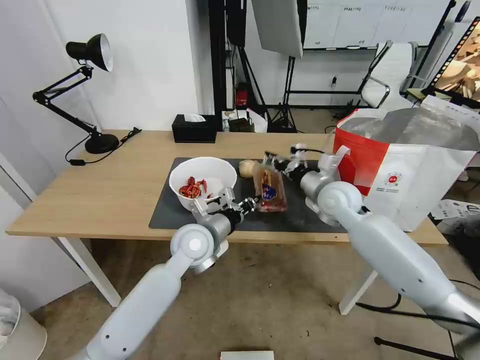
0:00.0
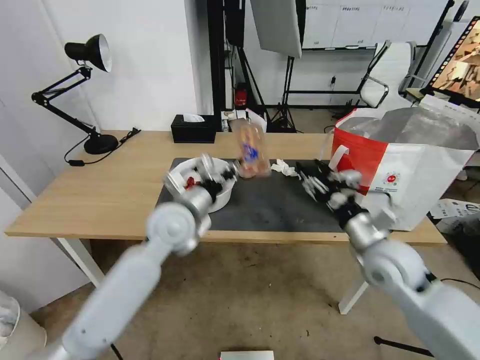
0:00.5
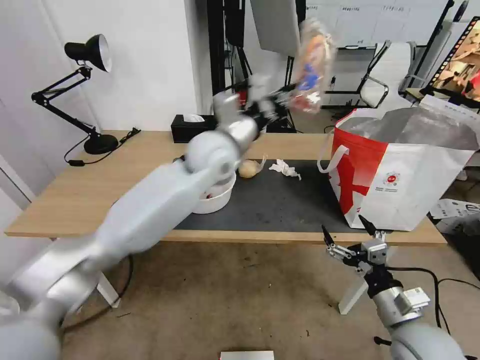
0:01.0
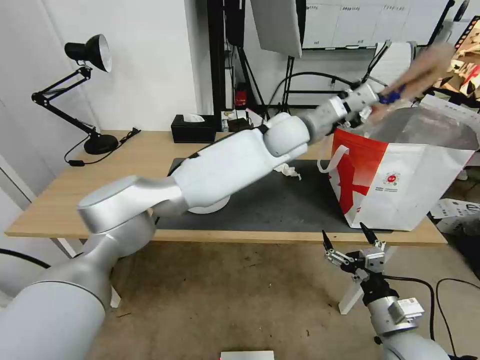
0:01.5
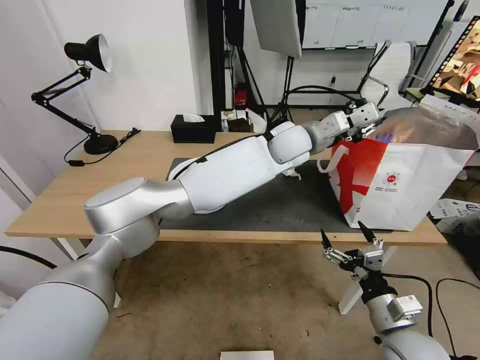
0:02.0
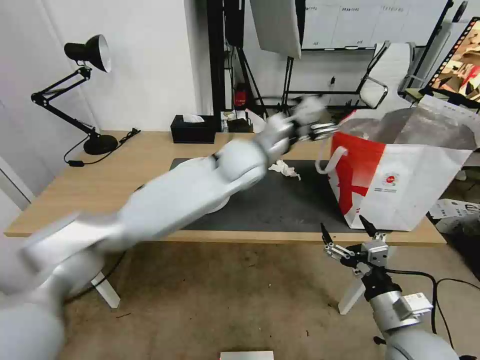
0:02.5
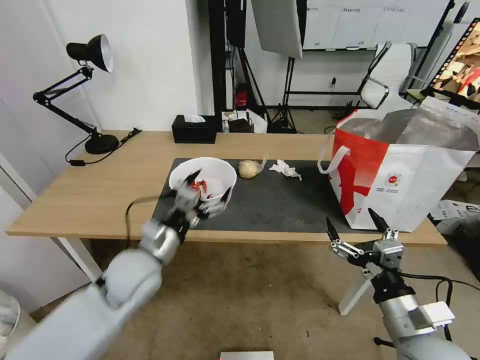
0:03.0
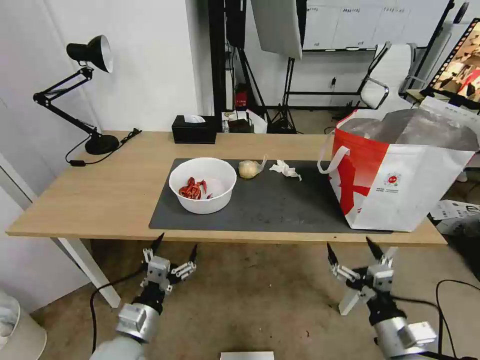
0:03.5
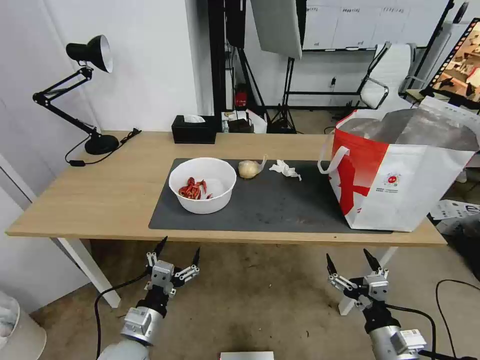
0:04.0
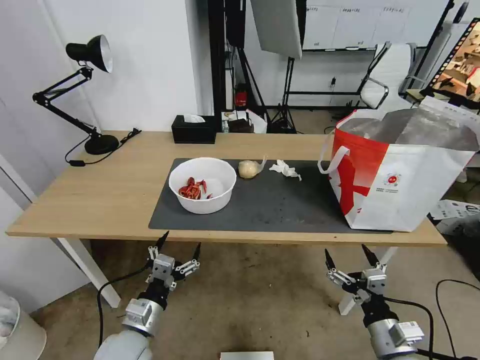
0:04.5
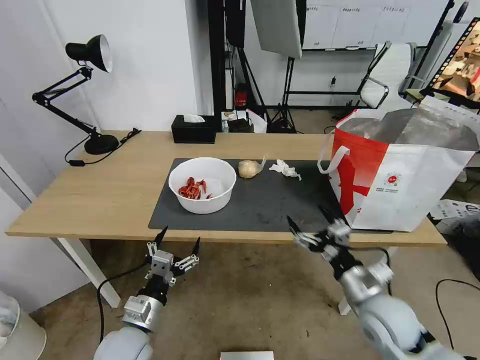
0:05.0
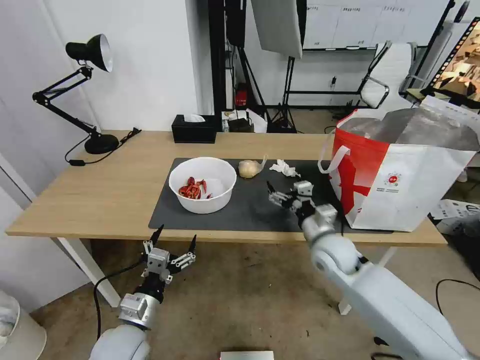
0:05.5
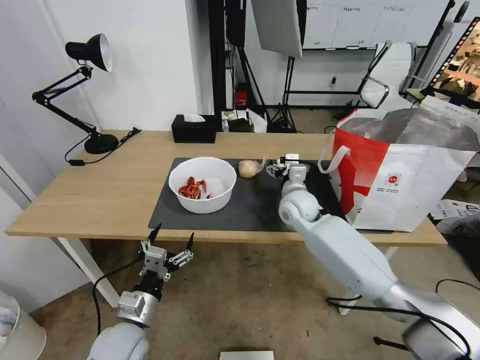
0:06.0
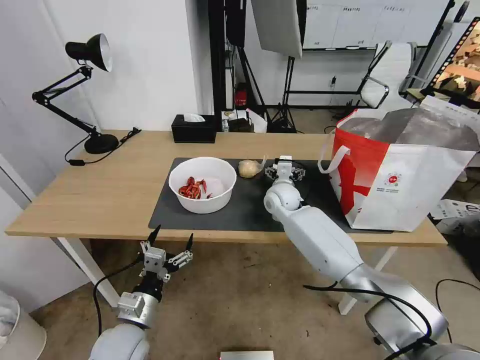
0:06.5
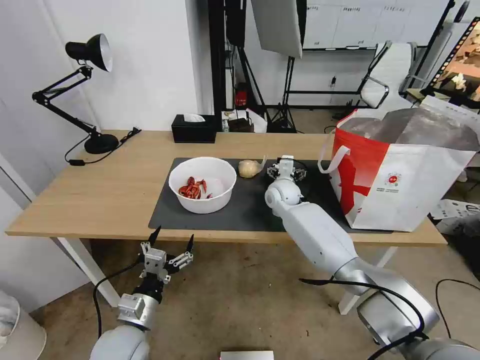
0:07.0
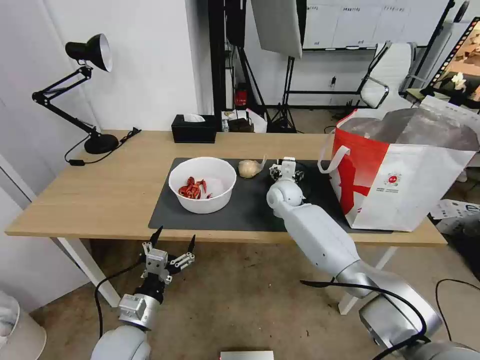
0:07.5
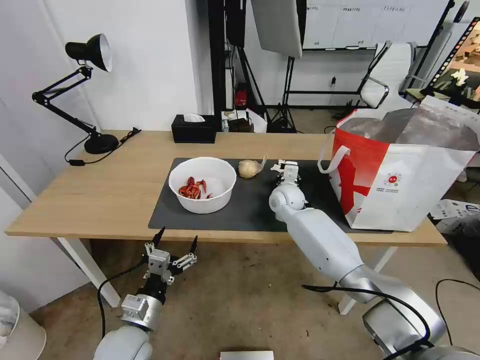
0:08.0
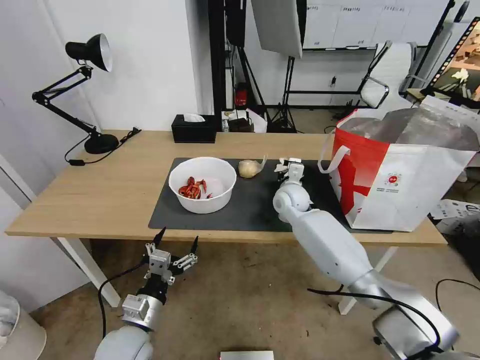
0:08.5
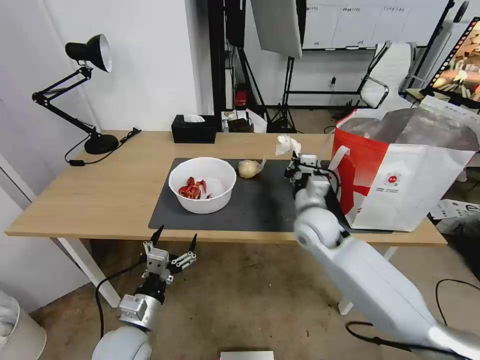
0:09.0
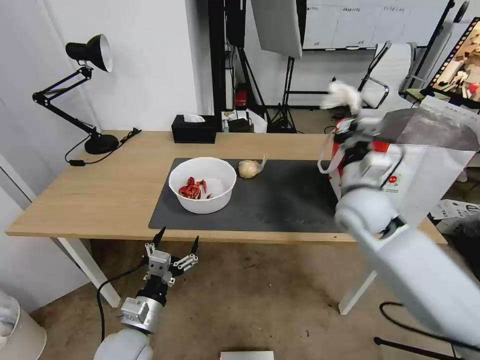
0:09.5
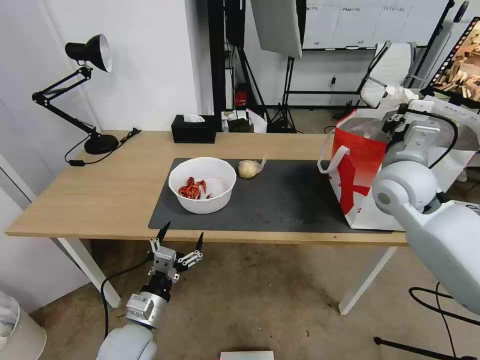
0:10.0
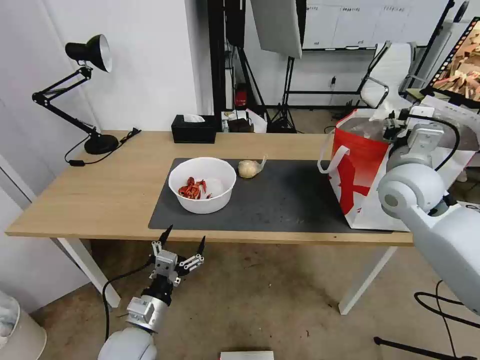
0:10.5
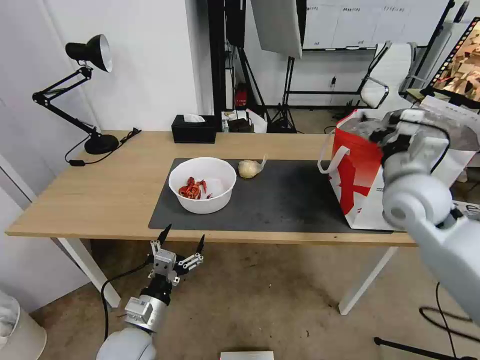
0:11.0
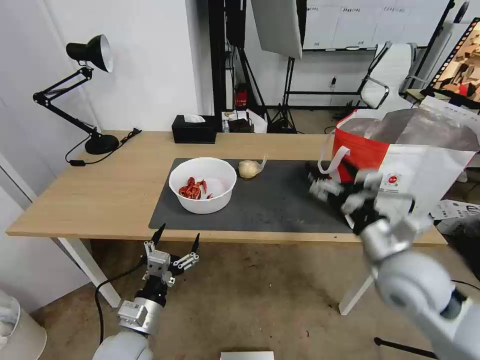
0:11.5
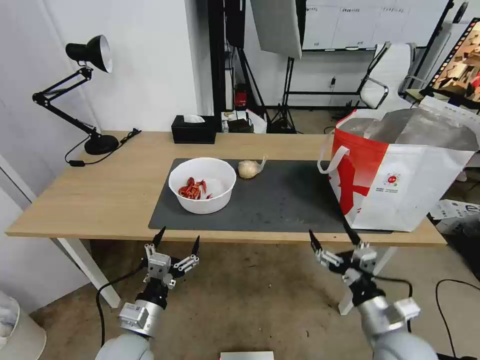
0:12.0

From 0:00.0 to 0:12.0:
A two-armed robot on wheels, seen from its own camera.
Task of the whole recording: Pick up the trash from the table and place it into the takeout bag.
From 0:00.0 to 0:02.0: The right gripper heads backward, covering approximately 30 cm, and opens up. The left gripper heads to the right, upward and forward, covering roughly 30 cm.
From 0:02.0 to 0:04.0: The right gripper shifts by roughly 5 cm, while the left gripper moves backward, to the left and downward, some 60 cm, and opens.
From 0:04.0 to 0:06.0: The right gripper heads forward and to the left, covering some 40 cm.
From 0:06.0 to 0:08.0: The right gripper is displaced forward by approximately 5 cm, and closes.
From 0:08.0 to 0:10.0: The right gripper moves upward, to the right and backward, about 30 cm.
From 0:10.0 to 0:12.0: The right gripper moves backward and downward, about 30 cm, and opens.

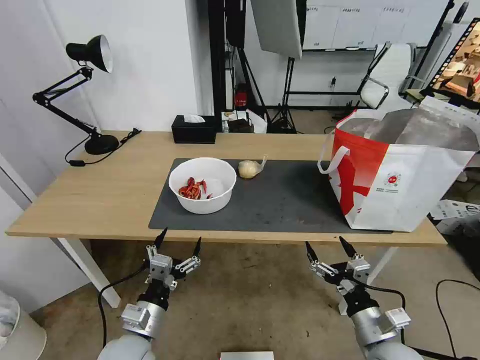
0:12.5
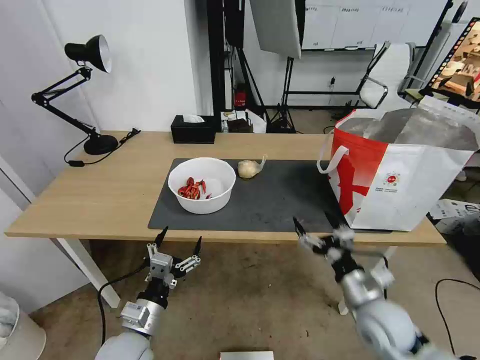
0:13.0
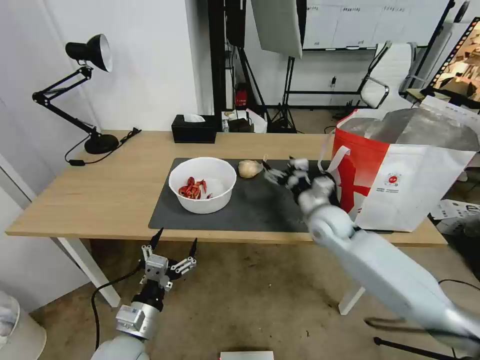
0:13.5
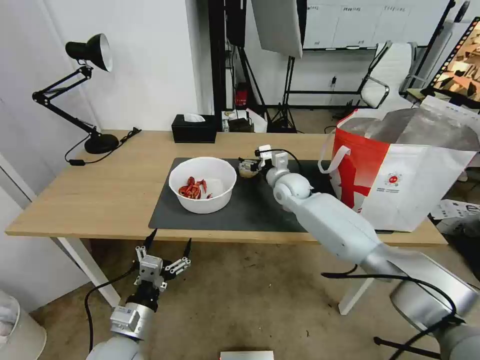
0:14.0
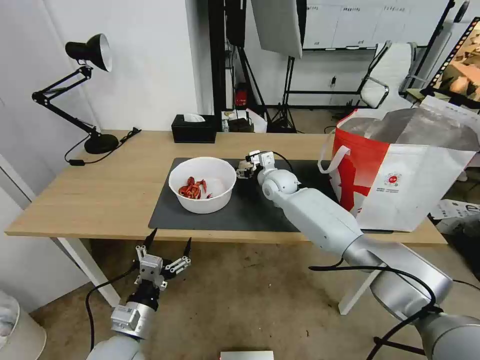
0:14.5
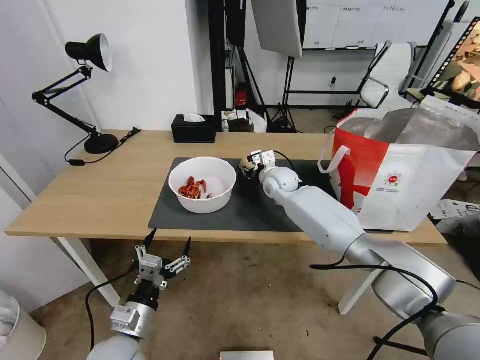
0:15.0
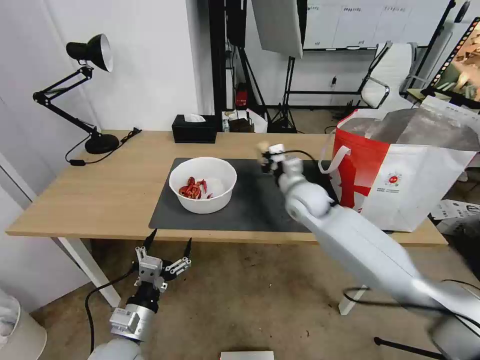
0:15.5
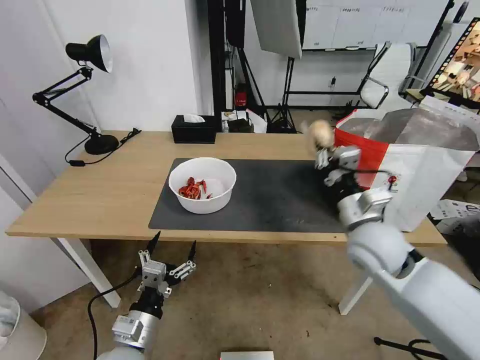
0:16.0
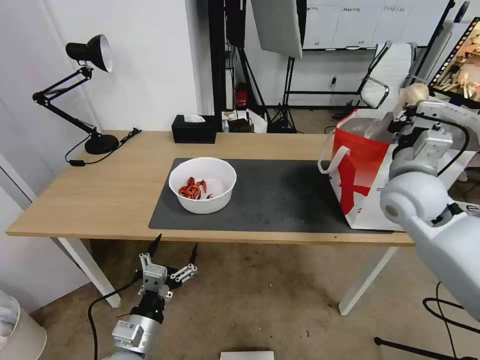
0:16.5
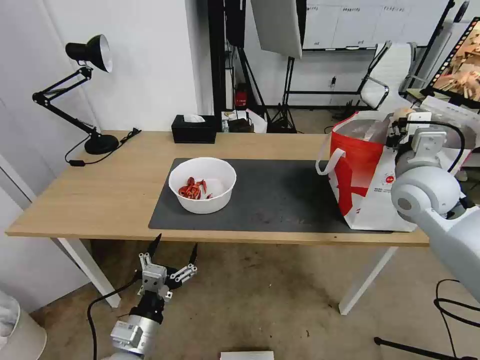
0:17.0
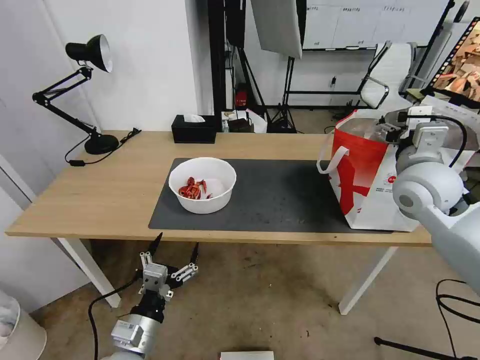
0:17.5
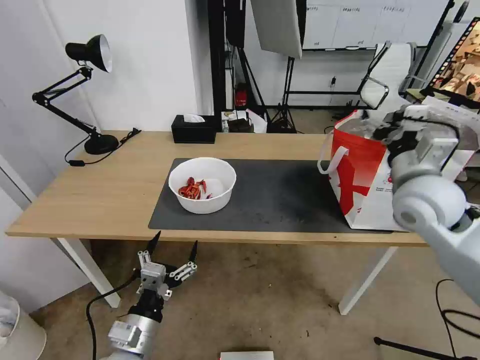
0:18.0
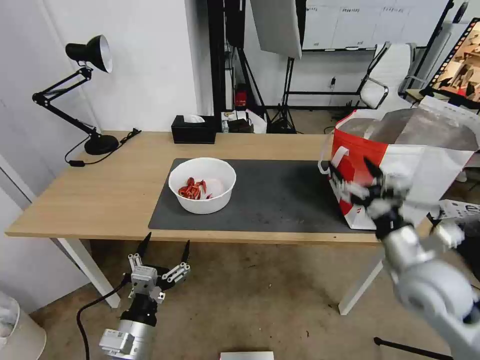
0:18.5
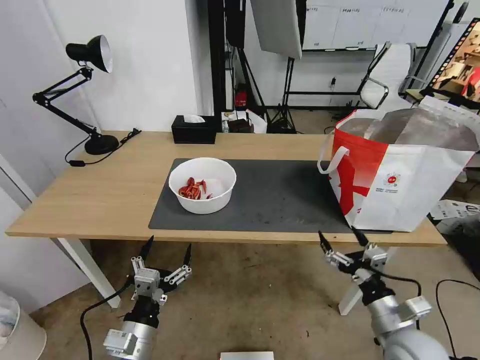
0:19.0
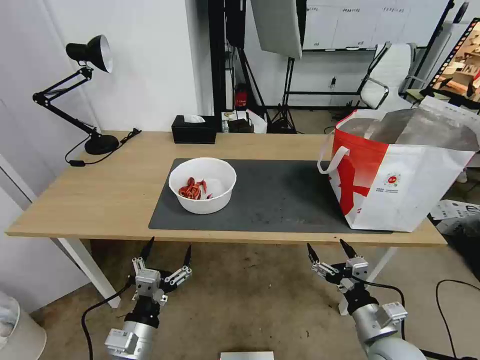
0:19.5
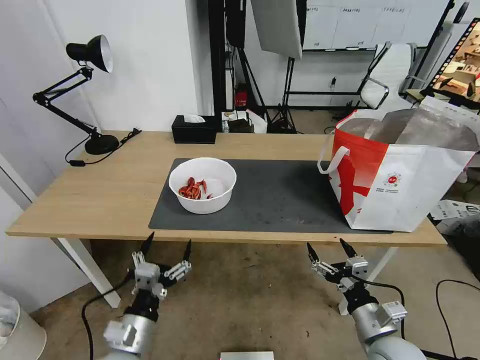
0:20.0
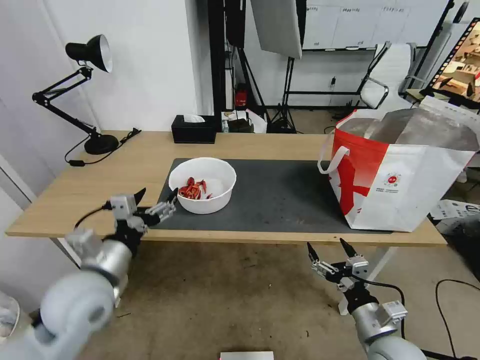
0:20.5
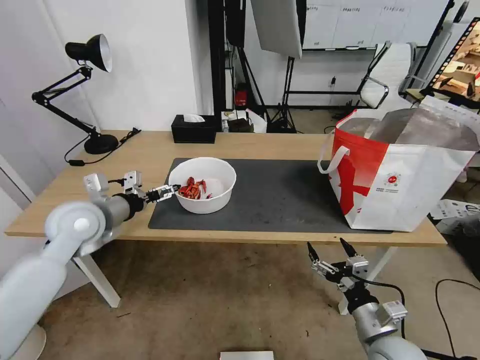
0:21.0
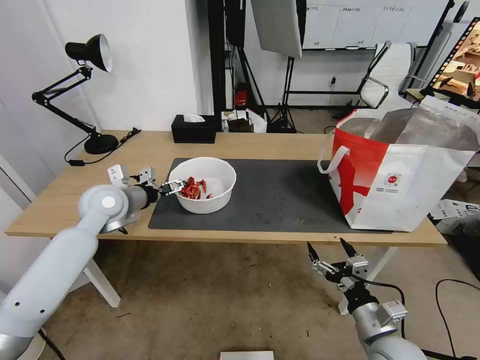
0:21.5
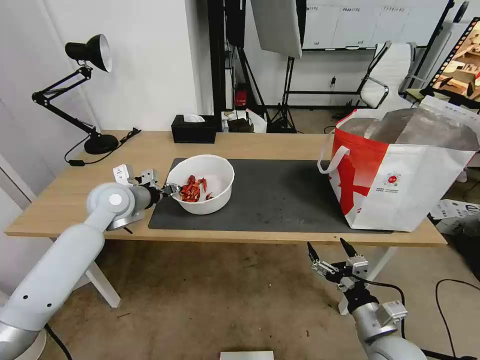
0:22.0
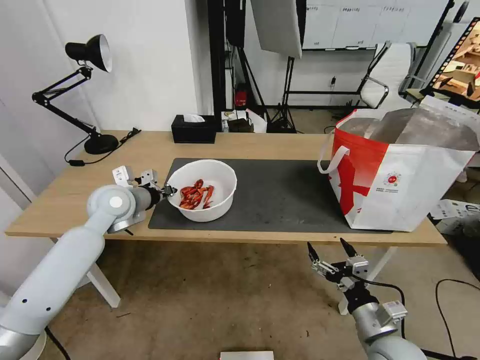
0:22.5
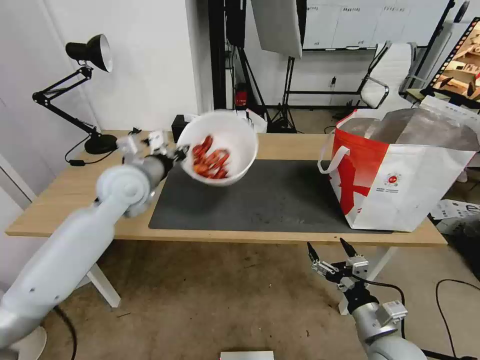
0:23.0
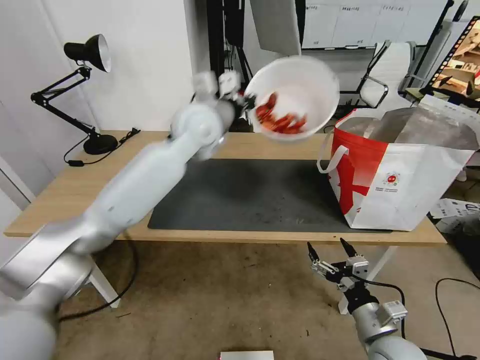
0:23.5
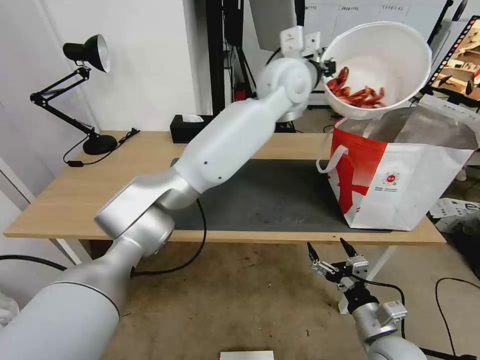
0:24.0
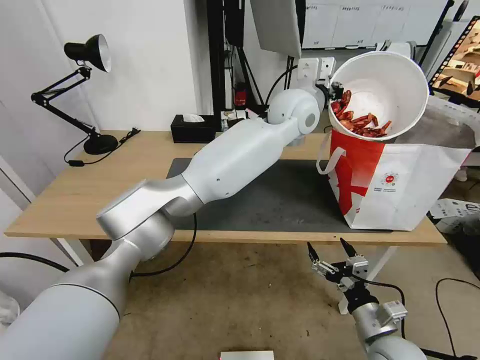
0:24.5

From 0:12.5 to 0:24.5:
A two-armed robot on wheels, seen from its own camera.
Task of the whole recording: Pick up the trash from the table and place it into the takeout bag.
From 0:12.5 to 0:14.5: The right gripper goes some 40 cm forward and to the left.
From 0:14.5 to 0:16.5: The right gripper shifts roughly 30 cm to the right, backward and upward, and closes its fingers.
From 0:16.5 to 0:18.5: The right gripper shifts roughly 15 cm backward and downward, and opens.
From 0:18.5 to 0:20.5: The left gripper is displaced upward and forward by about 15 cm. The right gripper is displaced downward and backward by approximately 20 cm.
From 0:20.5 to 0:22.5: The left gripper shifts approximately 20 cm forward, and closes its fingers.
From 0:22.5 to 0:24.5: The left gripper moves to the right and upward, approximately 40 cm.

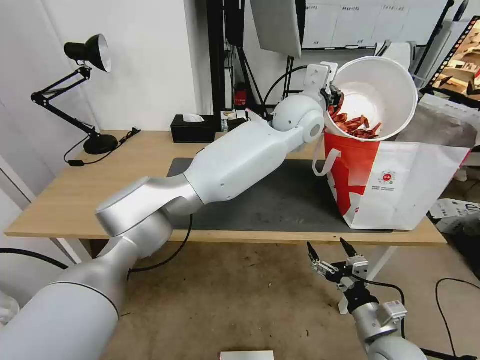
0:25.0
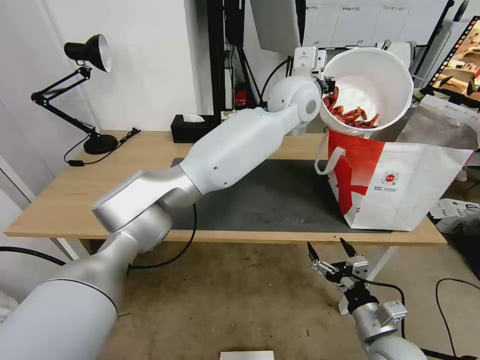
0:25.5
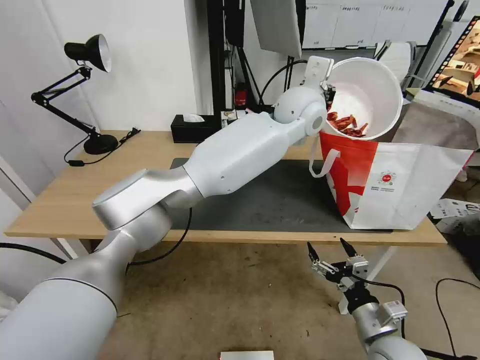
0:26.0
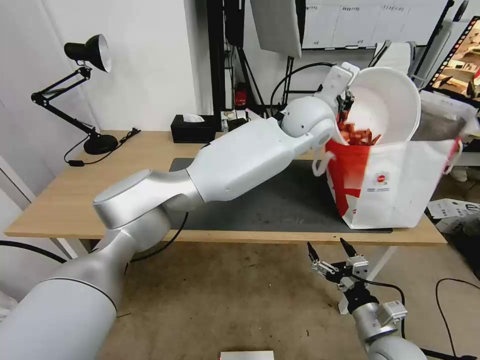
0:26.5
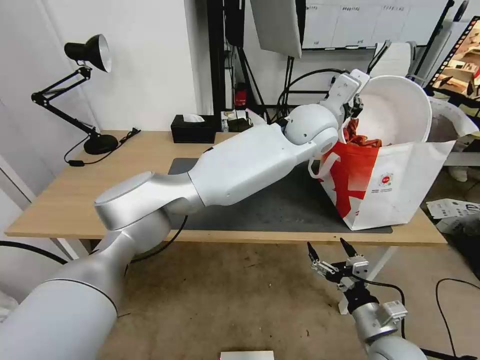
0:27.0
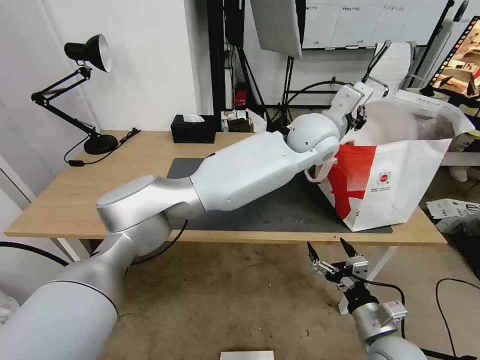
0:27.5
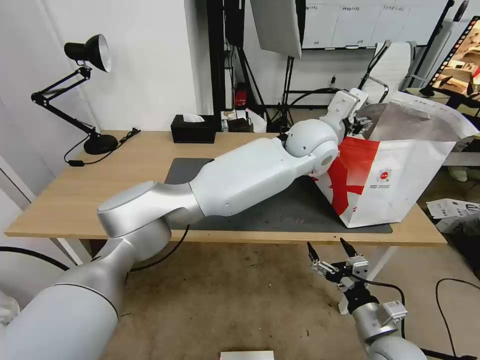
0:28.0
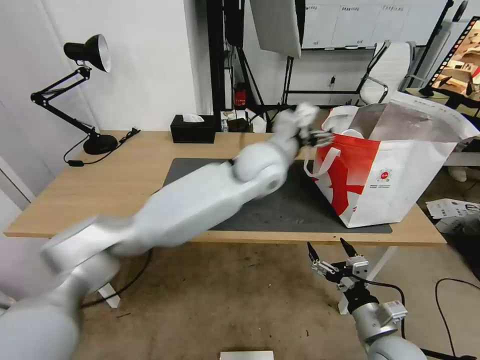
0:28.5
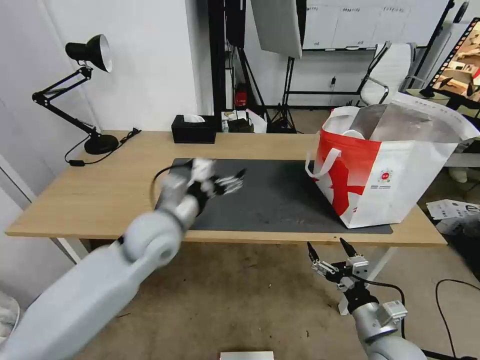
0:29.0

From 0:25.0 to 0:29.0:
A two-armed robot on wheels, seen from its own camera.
Task of the whole recording: Pick up the trash from the table and place it into the takeout bag.
From 0:25.0 to 0:27.0: The grippers stay close to where they were, moving slightly.
From 0:27.0 to 0:29.0: The left gripper heads to the left, backward and downward, covering approximately 35 cm, and opens its fingers.
